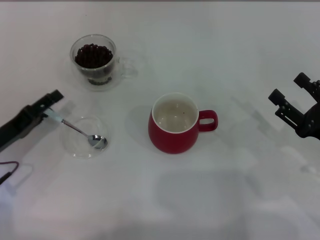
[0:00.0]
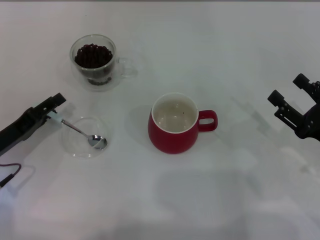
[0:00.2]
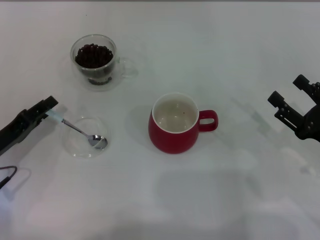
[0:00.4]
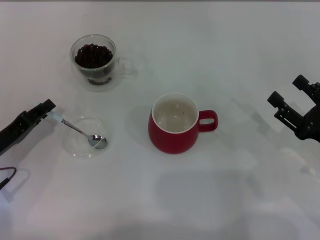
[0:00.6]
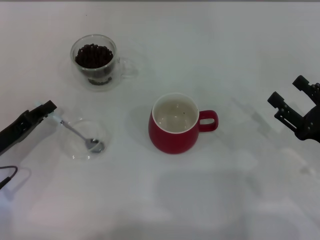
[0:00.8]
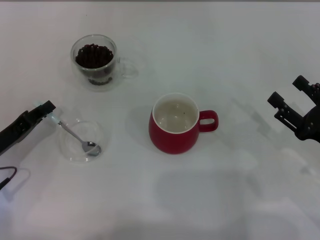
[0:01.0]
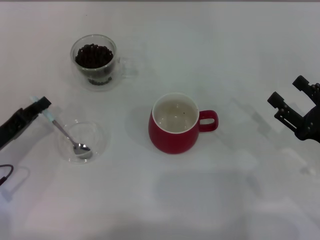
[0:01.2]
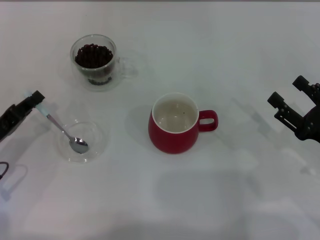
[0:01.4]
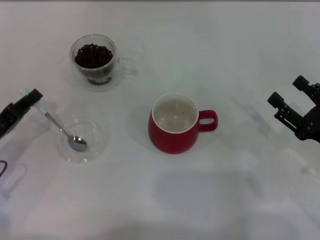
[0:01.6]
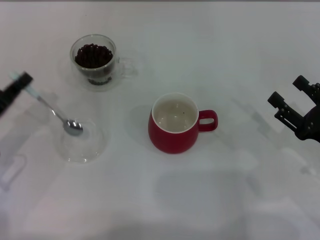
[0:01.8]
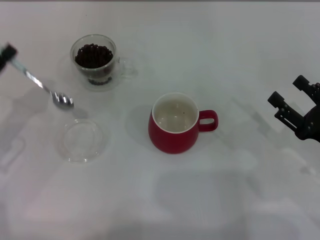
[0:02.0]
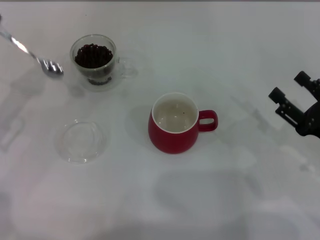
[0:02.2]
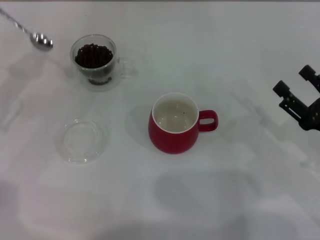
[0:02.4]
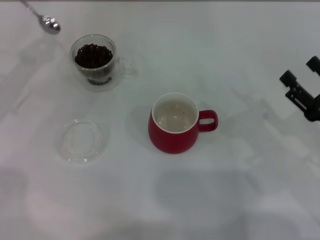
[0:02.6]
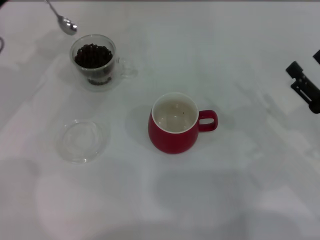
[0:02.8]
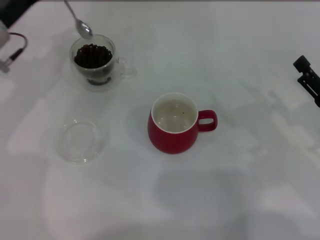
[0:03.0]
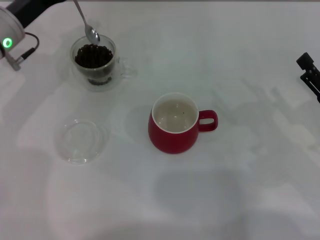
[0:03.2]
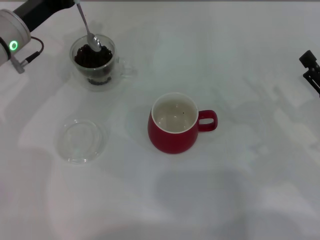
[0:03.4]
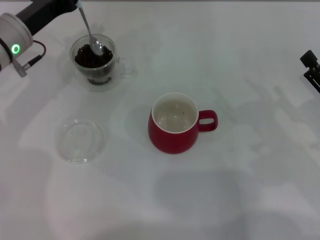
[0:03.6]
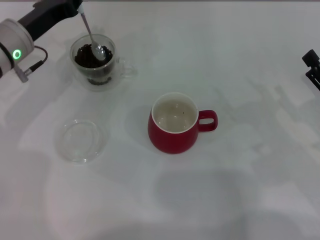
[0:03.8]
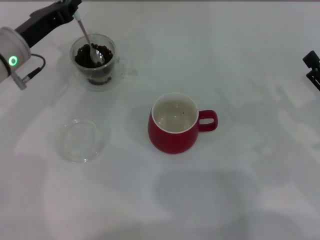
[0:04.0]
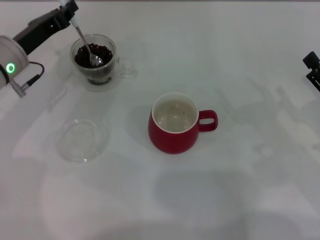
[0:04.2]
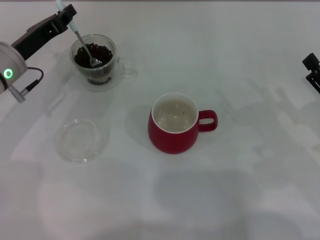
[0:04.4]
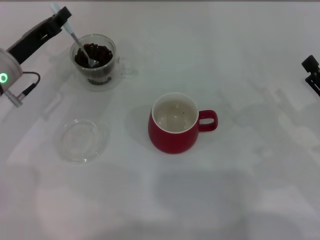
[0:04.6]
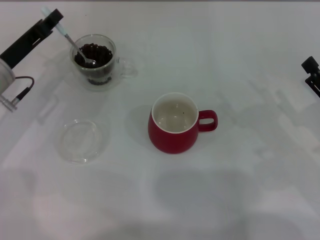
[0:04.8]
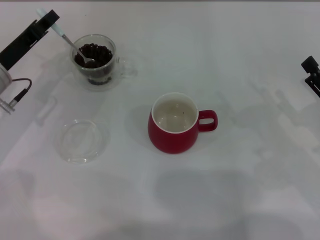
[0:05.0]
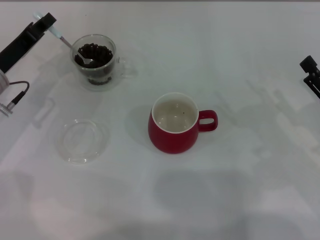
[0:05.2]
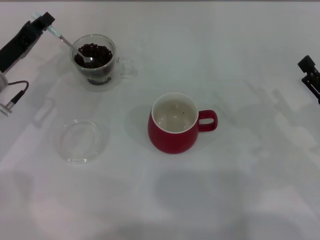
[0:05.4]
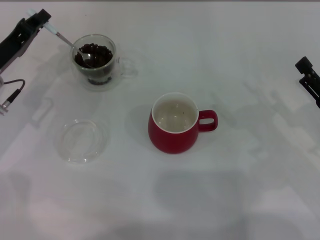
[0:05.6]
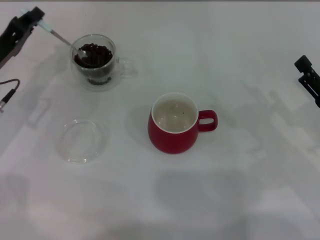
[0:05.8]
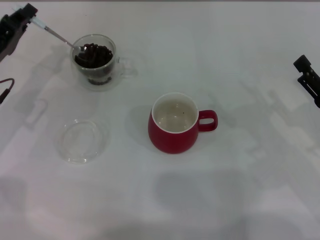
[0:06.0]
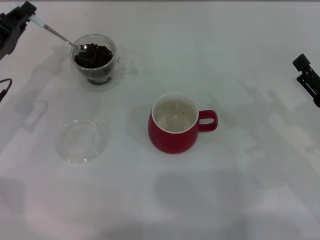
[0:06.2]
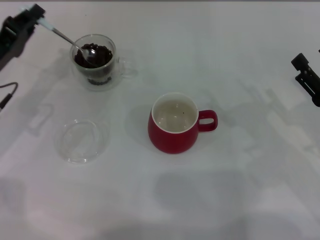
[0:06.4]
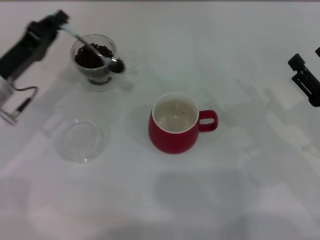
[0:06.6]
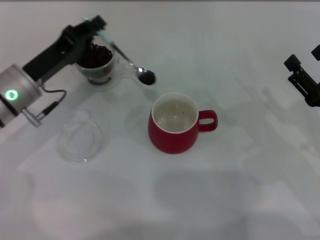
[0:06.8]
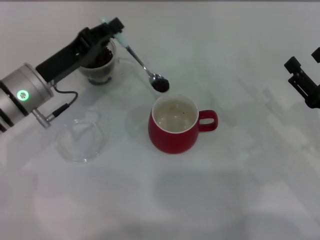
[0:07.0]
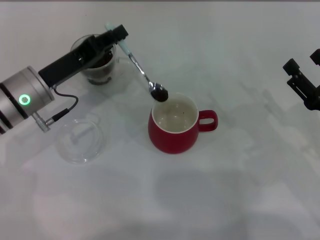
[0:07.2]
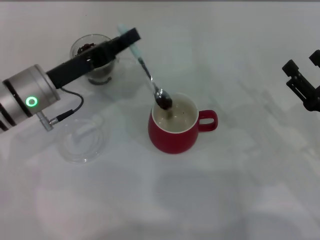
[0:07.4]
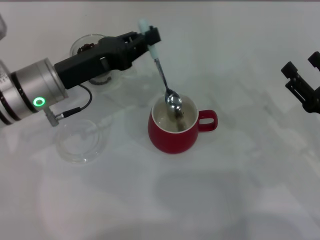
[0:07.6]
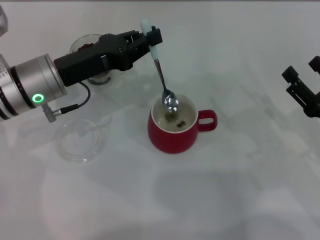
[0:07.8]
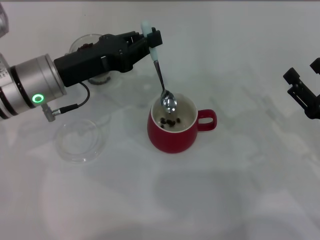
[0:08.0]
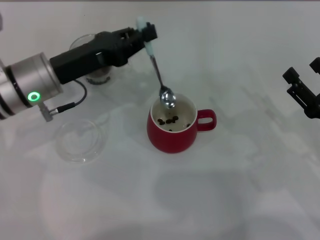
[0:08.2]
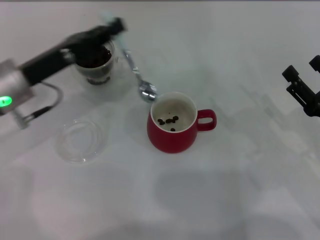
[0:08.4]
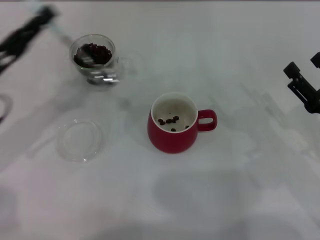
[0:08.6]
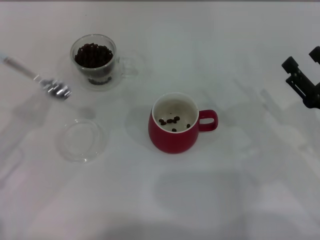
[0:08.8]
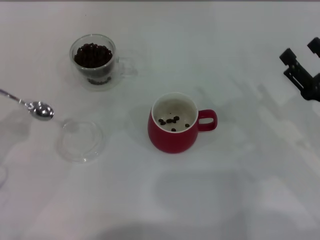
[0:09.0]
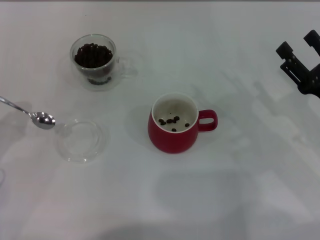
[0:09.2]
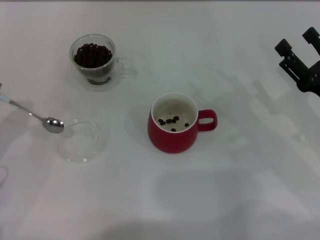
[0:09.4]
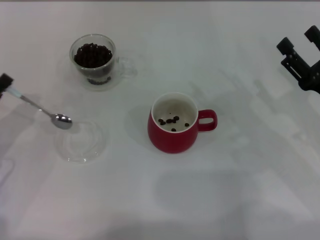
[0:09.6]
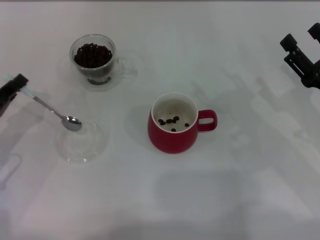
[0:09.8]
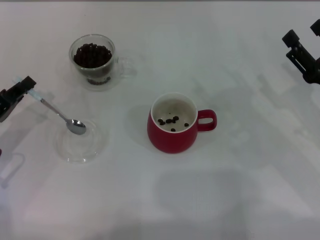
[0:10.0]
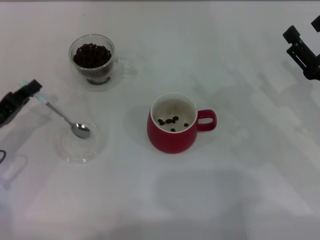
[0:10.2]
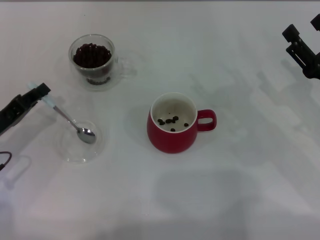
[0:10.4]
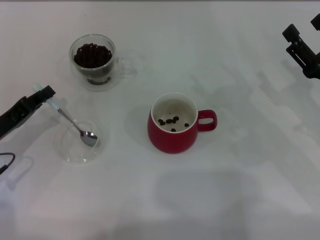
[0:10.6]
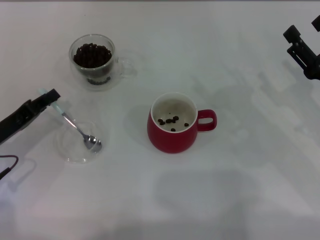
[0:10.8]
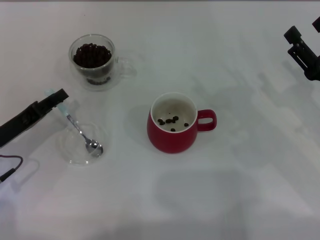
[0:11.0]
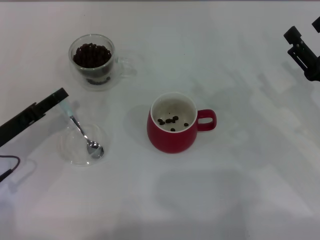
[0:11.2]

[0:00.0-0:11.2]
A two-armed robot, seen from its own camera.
Task of the whole recording: Use a blue spoon to take out the coffee beans from the glass and pour them into the red cup.
Step, 0:02.0 to 0:08.2: Scoop a spoonful of beans into the cup with the right gripper.
0:00.0 to 0:01.6: The left gripper closes up.
0:01.6 to 0:03.2: The left gripper moves forward, upward and to the right, roughly 20 cm.
0:03.2 to 0:04.8: The left gripper changes place by about 5 cm.
0:04.8 to 0:06.4: There are only small adjustments of the grippers.
0:06.4 to 0:08.0: The left gripper moves to the right, some 10 cm.
0:08.0 to 0:09.6: The left gripper is displaced to the left, backward and downward by approximately 20 cm.
0:09.6 to 0:11.2: The grippers make only small movements.

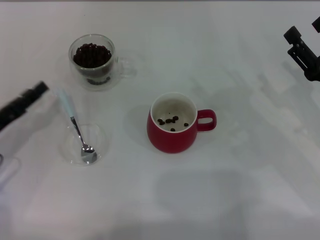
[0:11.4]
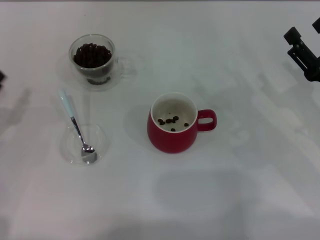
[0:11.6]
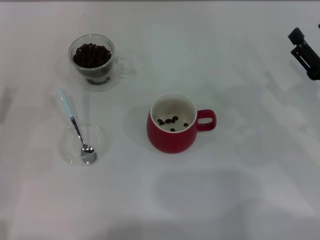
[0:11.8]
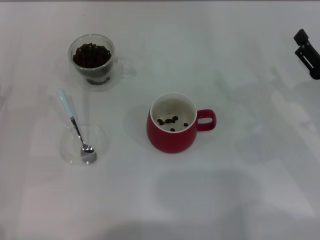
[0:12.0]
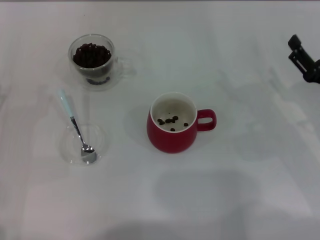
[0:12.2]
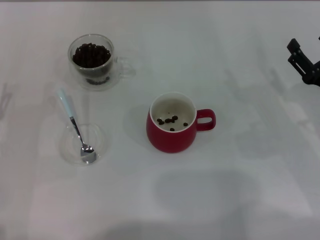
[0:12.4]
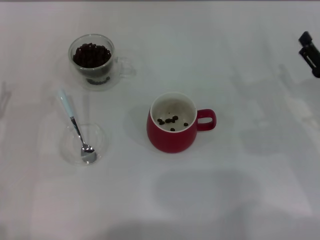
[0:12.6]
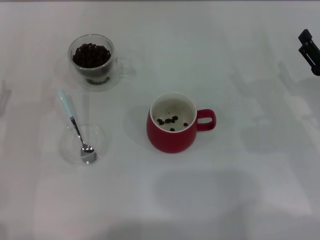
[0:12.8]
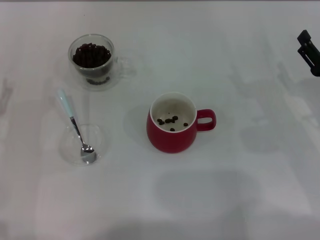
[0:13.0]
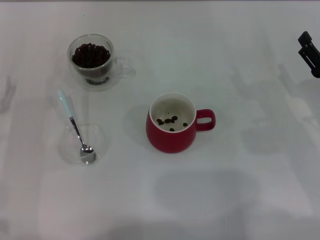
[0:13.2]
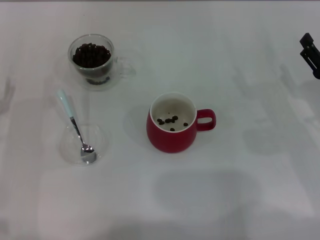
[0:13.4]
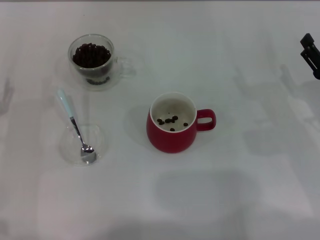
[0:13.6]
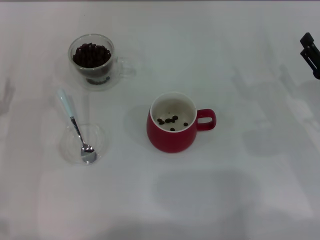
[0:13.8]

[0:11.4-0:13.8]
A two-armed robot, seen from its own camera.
Task of the whole recording: Use a blue spoon to take out the coffee beans from the glass and pour them into the red cup.
0:11.4 to 0:12.6: The left gripper opens.
